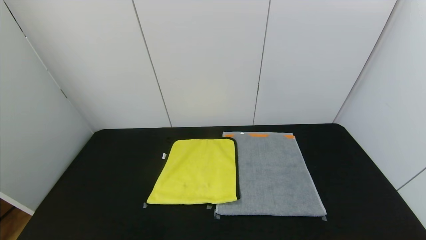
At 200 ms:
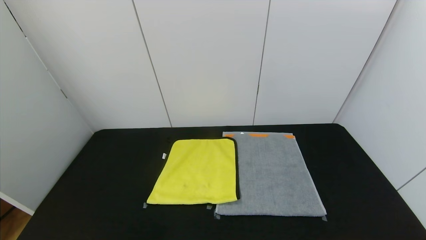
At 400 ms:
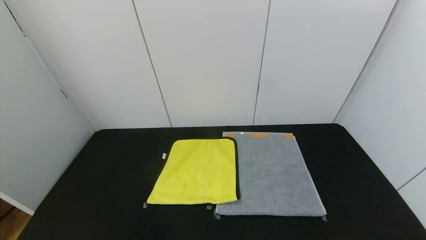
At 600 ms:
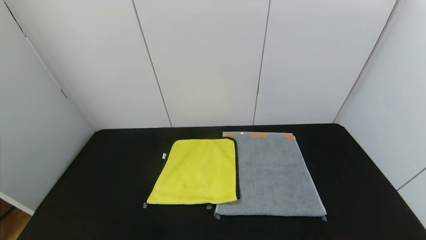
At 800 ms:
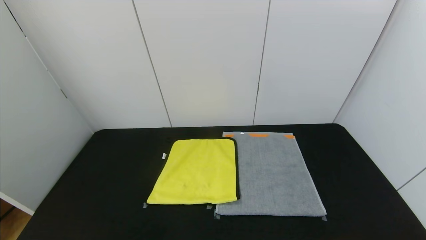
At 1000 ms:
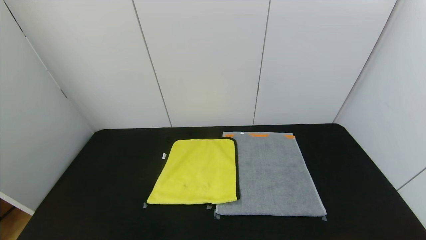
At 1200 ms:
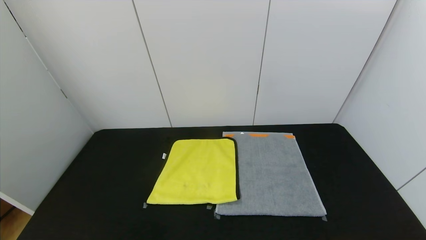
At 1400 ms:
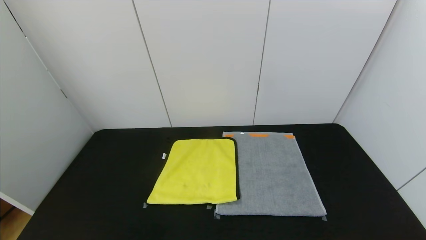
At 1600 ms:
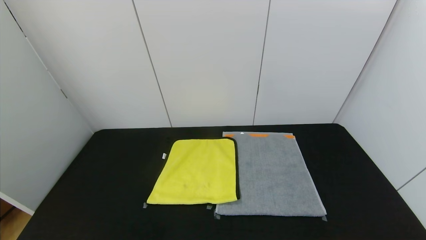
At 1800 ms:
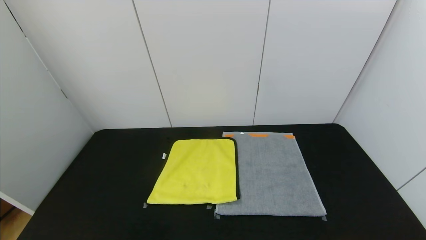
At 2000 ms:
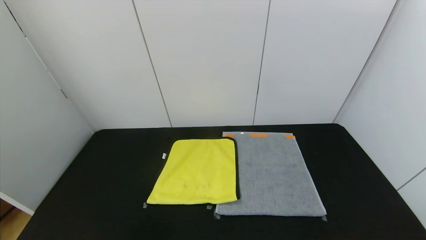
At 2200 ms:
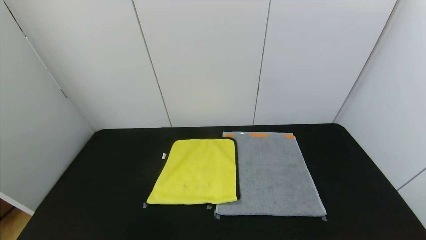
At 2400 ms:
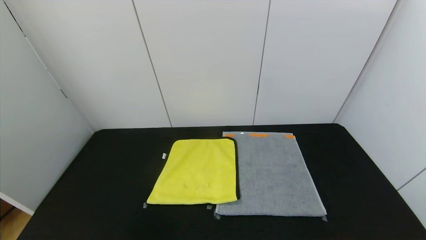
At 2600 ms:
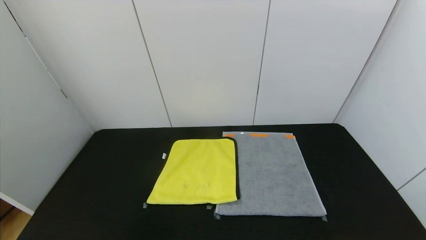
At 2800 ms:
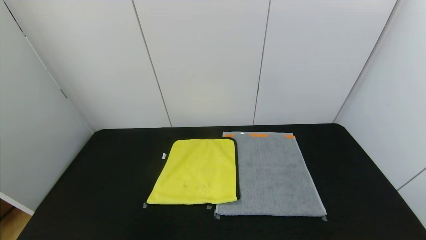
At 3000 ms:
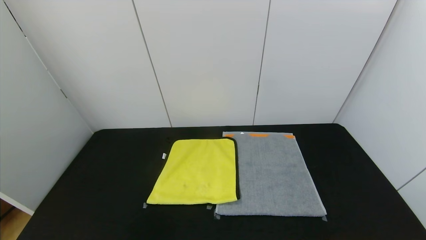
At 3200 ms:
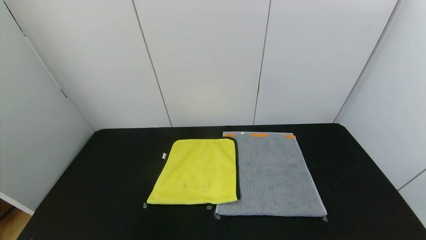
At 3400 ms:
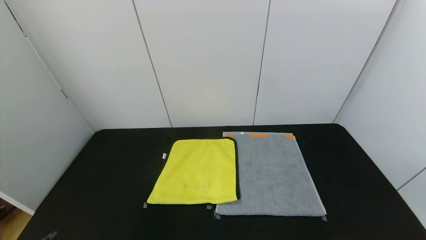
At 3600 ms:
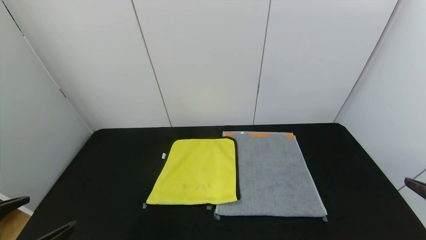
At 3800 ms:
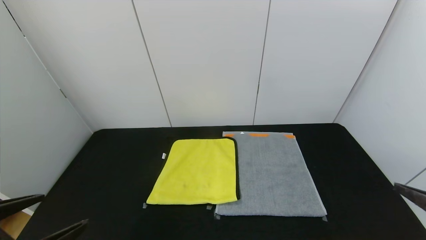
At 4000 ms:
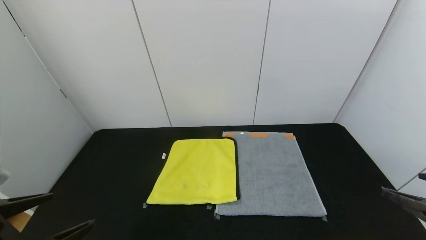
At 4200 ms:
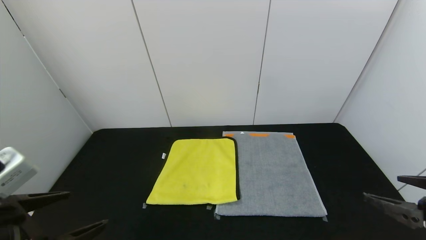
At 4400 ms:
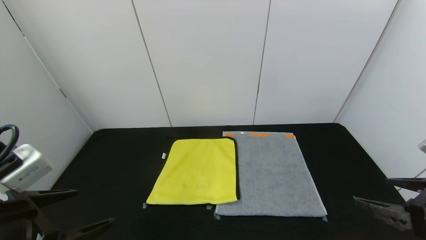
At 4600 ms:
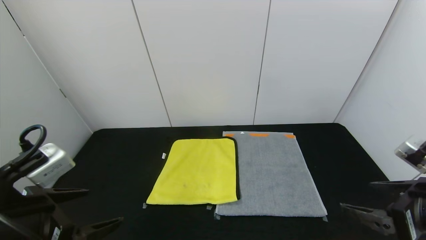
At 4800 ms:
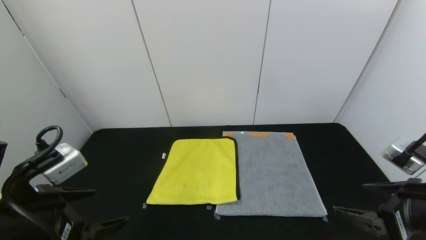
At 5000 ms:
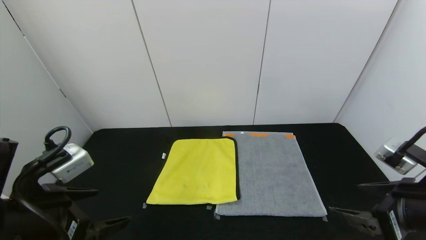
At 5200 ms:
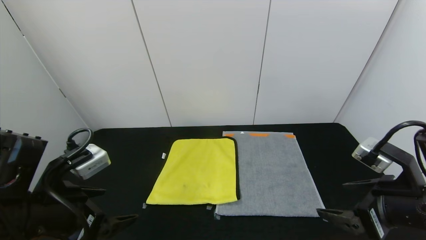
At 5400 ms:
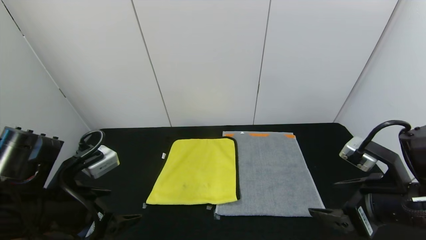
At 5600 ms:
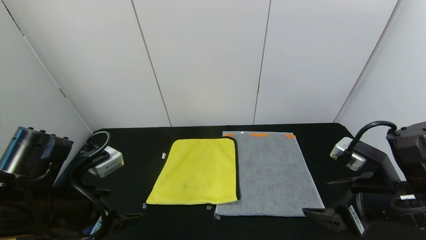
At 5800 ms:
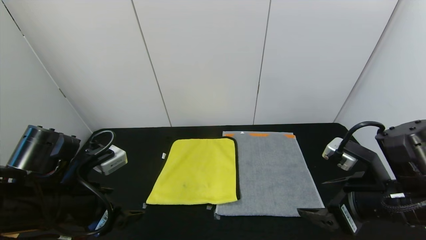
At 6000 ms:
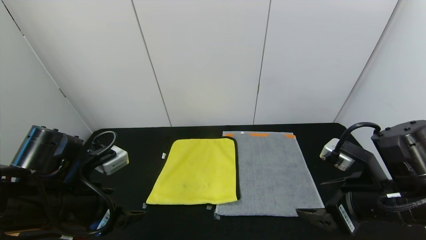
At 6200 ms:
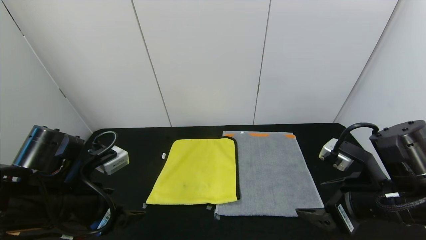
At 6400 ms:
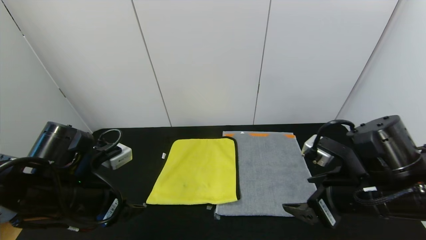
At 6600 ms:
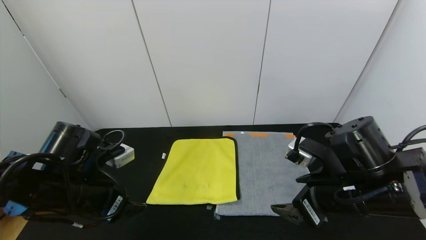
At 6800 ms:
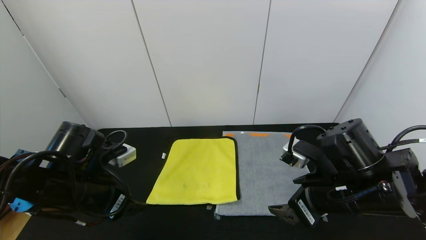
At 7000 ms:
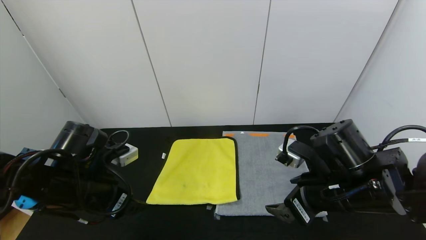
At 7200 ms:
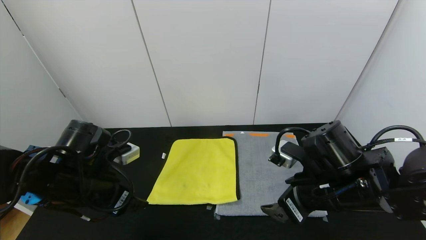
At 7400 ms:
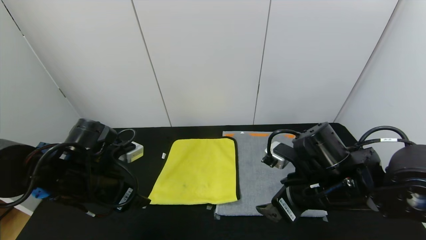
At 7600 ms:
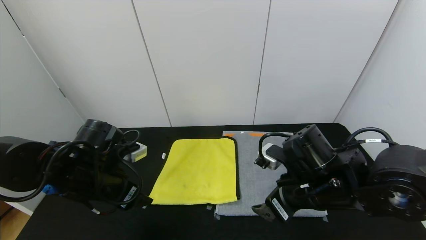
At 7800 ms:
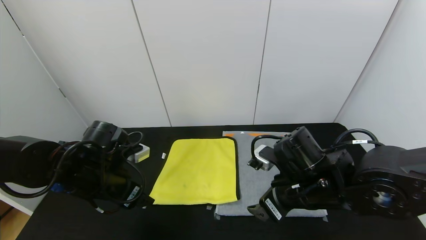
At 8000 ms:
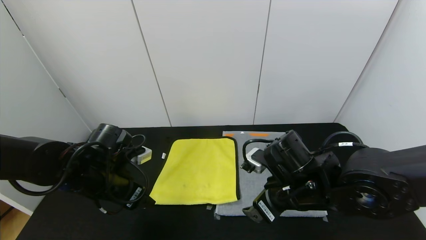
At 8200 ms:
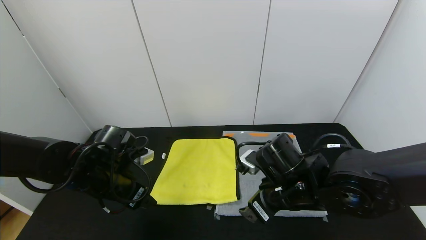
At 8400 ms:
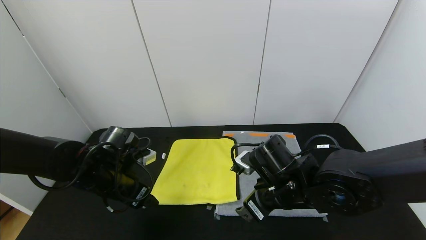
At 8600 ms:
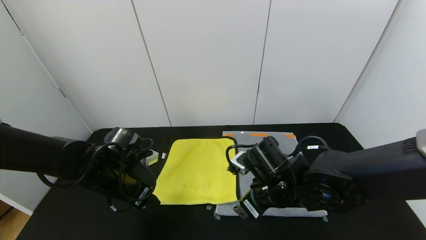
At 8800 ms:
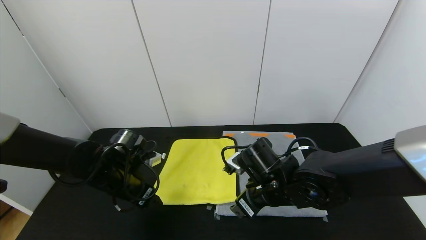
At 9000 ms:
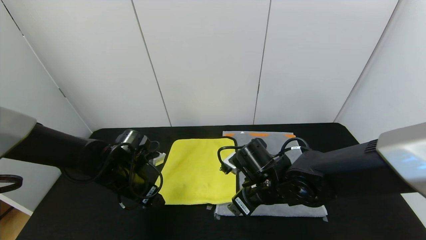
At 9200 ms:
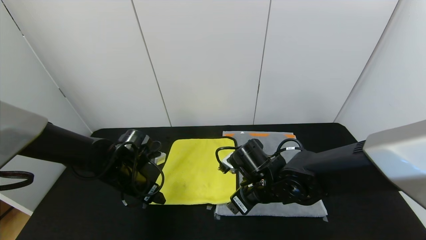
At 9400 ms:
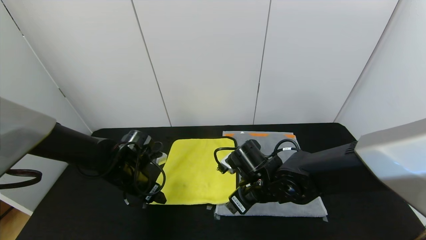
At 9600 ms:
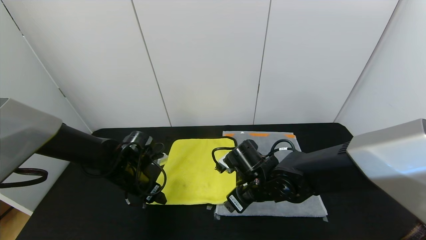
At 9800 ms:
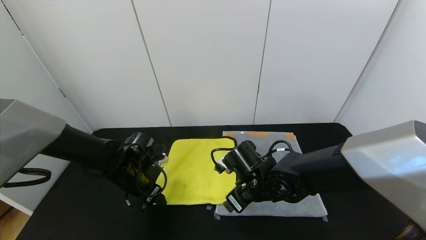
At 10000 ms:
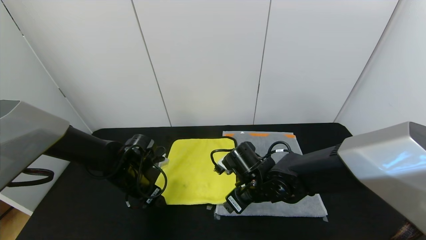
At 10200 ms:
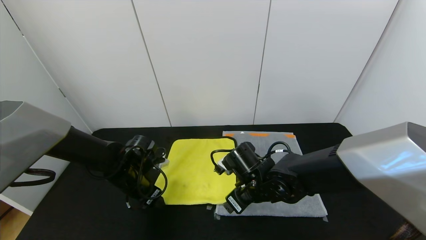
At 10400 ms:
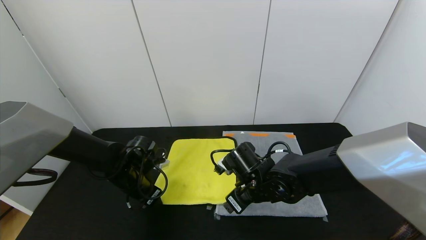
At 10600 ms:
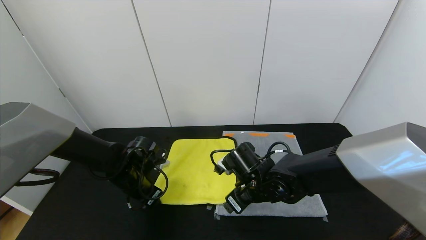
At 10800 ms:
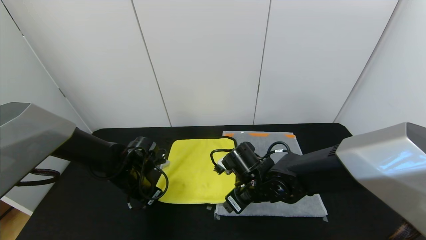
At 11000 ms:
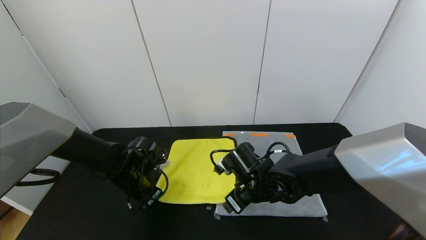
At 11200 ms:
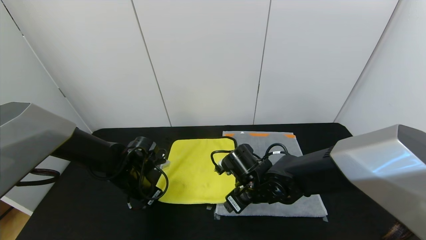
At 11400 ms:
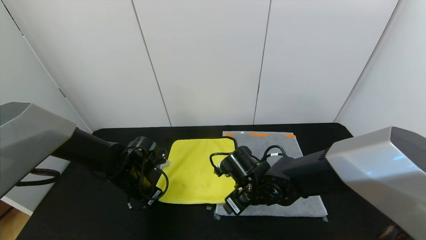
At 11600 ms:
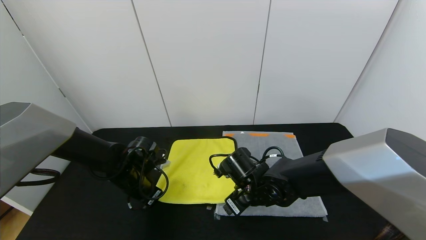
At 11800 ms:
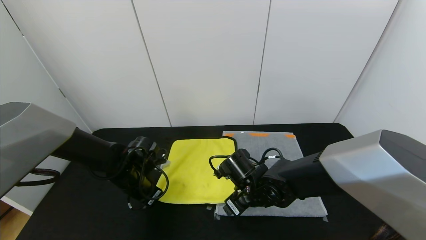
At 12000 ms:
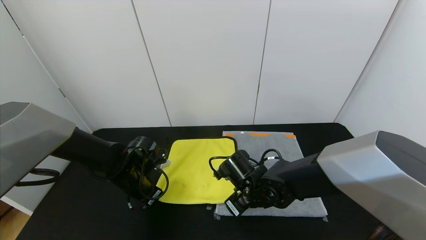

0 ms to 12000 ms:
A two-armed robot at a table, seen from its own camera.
Task of the whole recording: Use the gripper to fold the yellow towel and grey towel in half twice,then put the yellow towel on the grey towel.
0 ms to 1600 ms: Neither gripper changes place.
3000 ms to 4400 ms: The left gripper is displaced forward and upward by about 15 cm. Meanwhile the right gripper travels forward by roughly 15 cm.
4400 ms to 6000 ms: The left gripper moves forward, approximately 10 cm. The right gripper travels to the left and forward by some 10 cm.
6000 ms to 7600 ms: The right gripper heads to the left, covering roughly 10 cm; the left gripper moves forward, some 5 cm.
7600 ms to 9000 ms: The left gripper is displaced forward and downward by about 10 cm; the right gripper shifts about 10 cm to the left and downward.
9000 ms to 10400 ms: The left gripper closes up.
10400 ms to 12000 ms: The left gripper closes its fingers.

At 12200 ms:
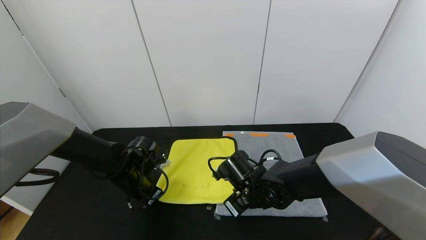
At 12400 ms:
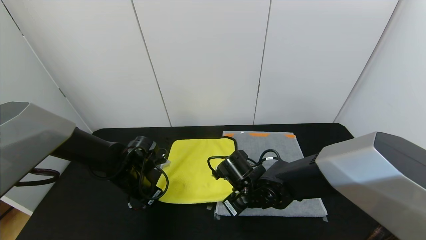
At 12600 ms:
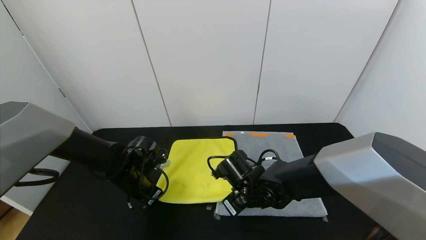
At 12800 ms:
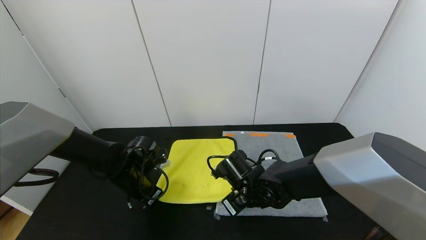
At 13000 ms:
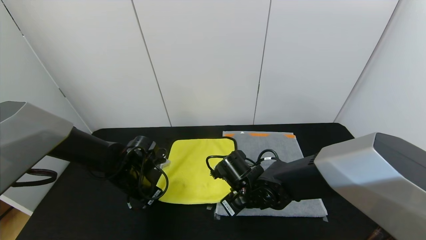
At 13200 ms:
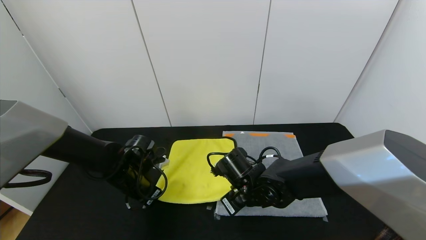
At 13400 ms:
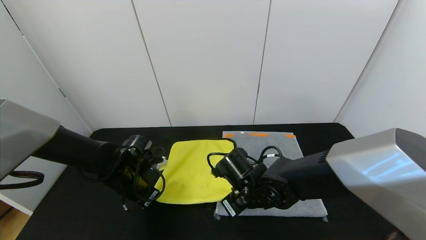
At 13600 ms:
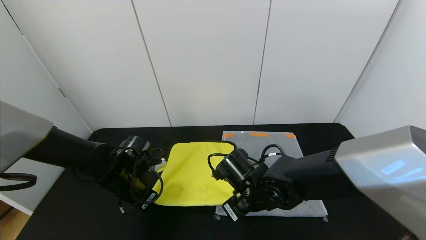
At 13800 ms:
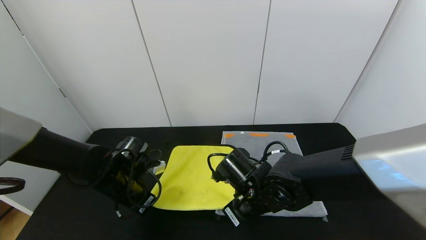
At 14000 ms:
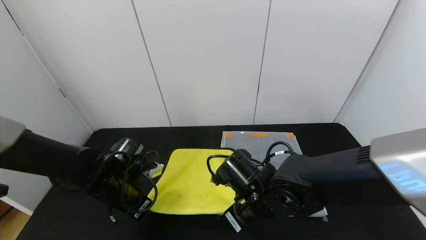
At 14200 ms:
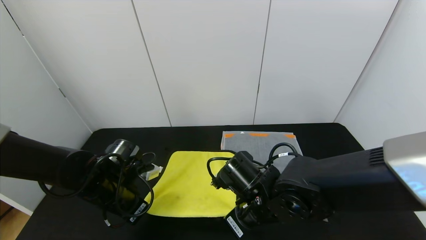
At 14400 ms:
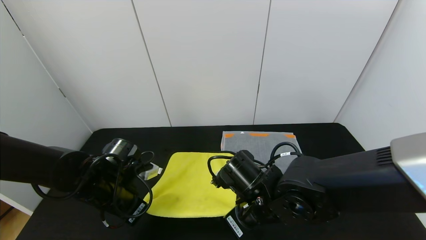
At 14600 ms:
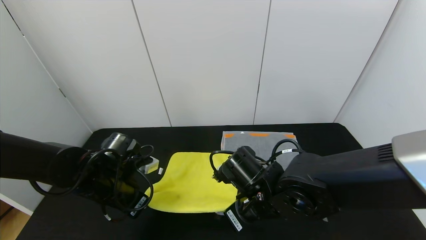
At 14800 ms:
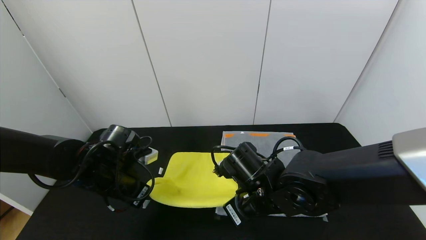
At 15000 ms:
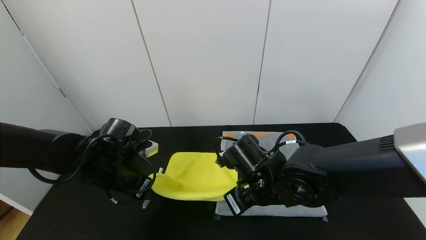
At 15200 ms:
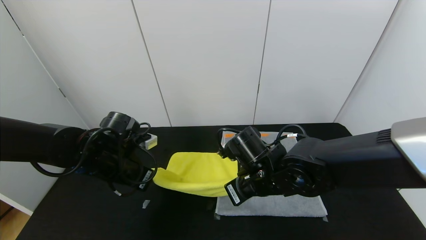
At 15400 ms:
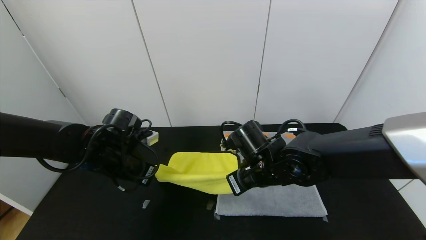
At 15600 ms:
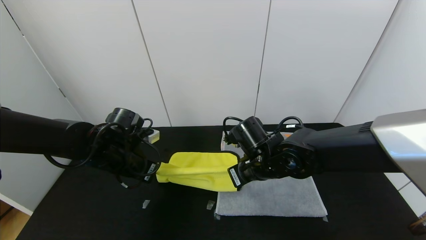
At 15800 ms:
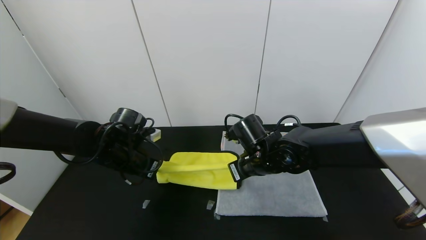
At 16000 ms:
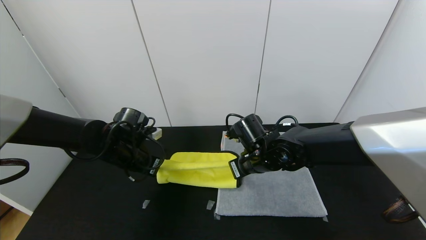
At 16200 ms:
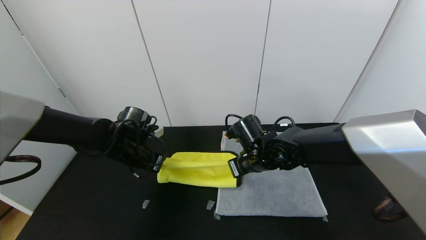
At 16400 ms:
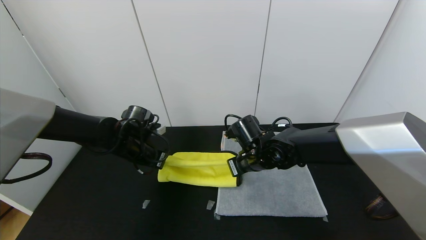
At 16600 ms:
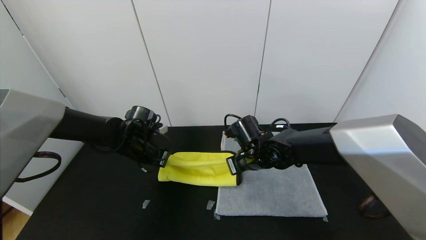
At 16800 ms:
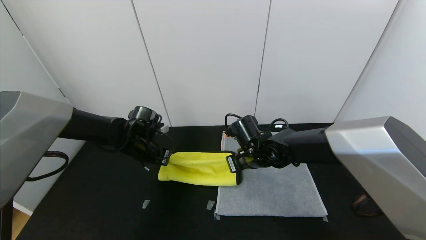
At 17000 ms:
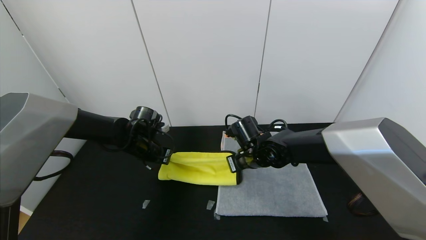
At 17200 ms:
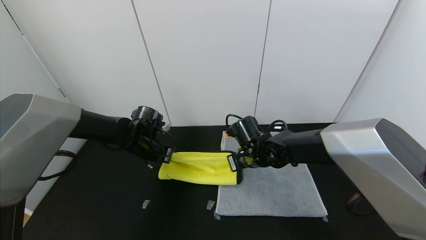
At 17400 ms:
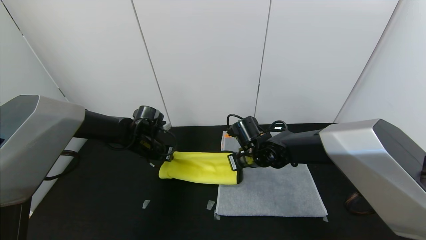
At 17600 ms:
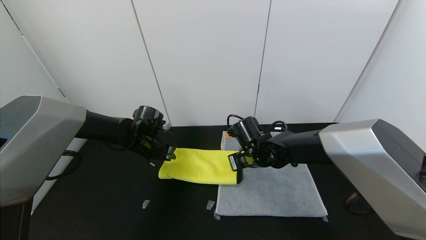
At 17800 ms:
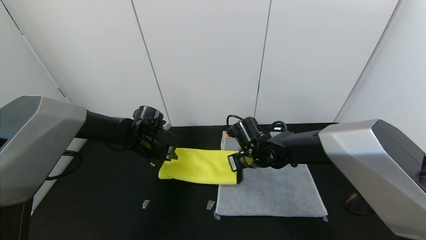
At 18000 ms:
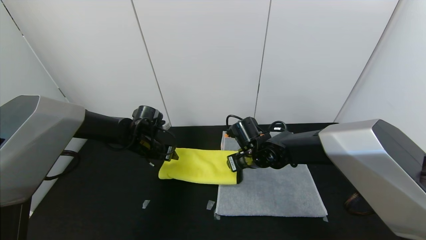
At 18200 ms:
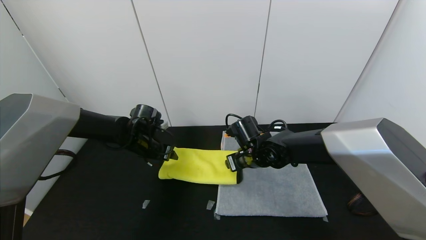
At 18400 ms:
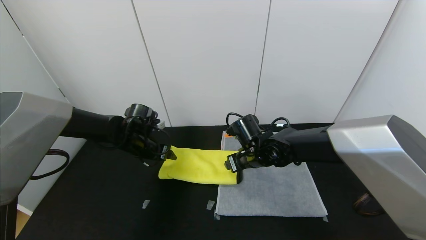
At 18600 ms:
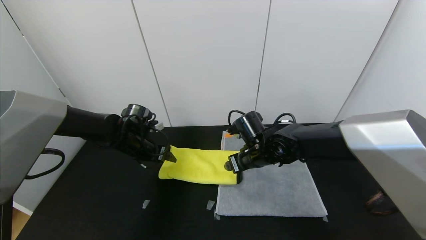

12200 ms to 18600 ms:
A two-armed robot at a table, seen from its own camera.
Task of the whole recording: Use the gripper to fold the yellow towel and grey towel in half twice,then put the yellow towel on the grey towel.
Step, 12200 ms to 17600 ms: Fold the yellow towel upwards with the left gripper.
12200 ms to 13800 ms: The right gripper moves approximately 5 cm, and closes its fingers.
13800 ms to 15400 ms: The left gripper moves upward, about 5 cm, while the right gripper changes place by approximately 5 cm.
15400 ms to 17000 ms: The grippers both shift forward by about 10 cm.
17000 ms to 18600 ms: The left gripper opens up. Meanwhile the right gripper opens.
